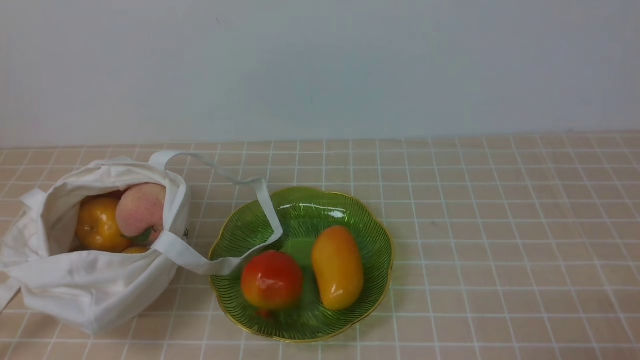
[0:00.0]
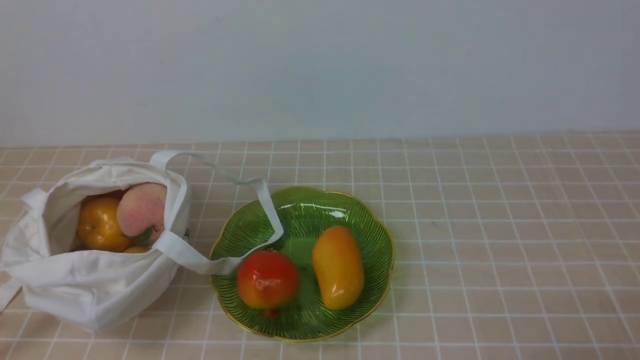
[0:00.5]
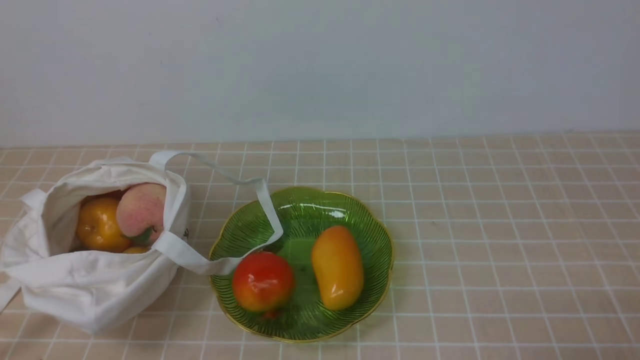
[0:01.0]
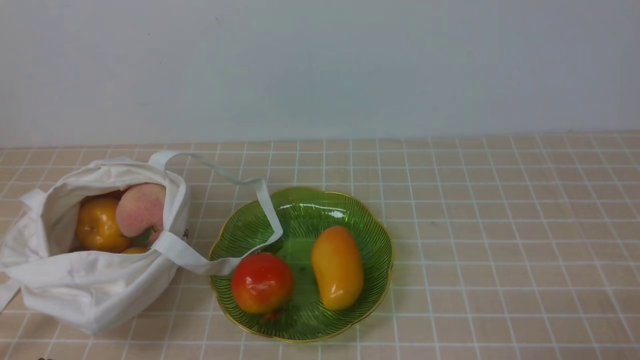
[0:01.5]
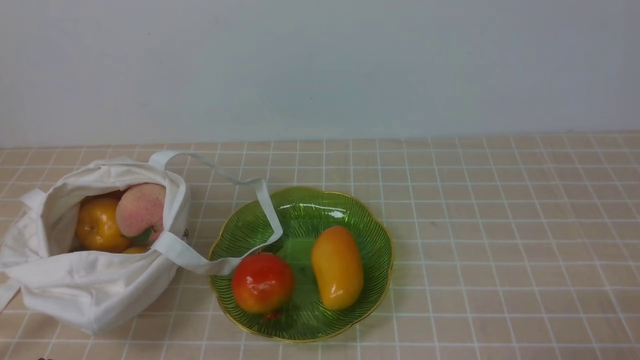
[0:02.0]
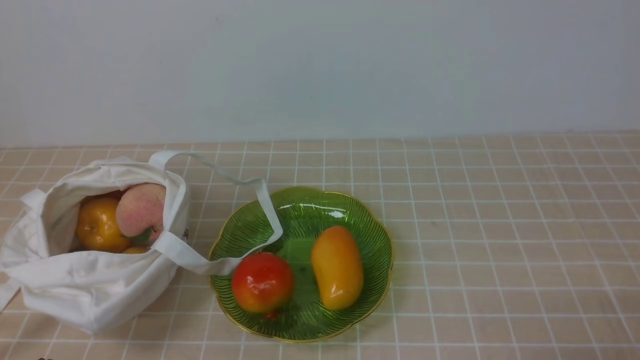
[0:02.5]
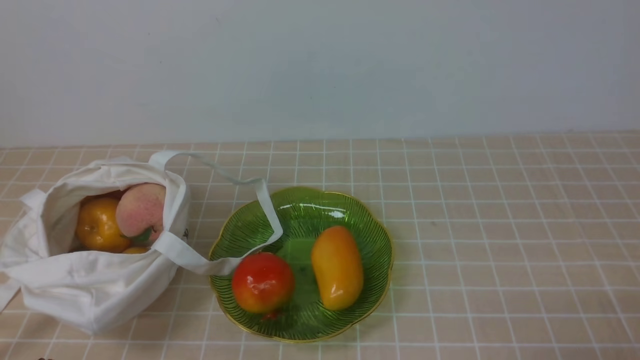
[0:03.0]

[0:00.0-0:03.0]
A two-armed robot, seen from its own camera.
0:01.5 to 0:03.0: Both grippers stay put.
